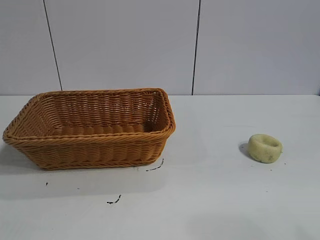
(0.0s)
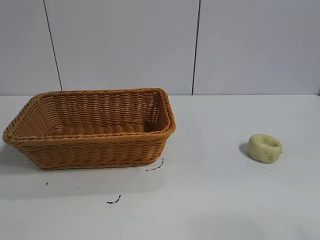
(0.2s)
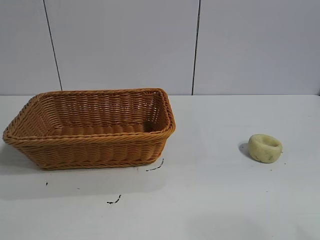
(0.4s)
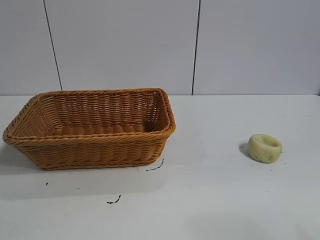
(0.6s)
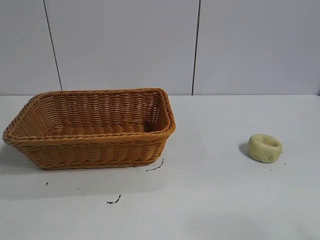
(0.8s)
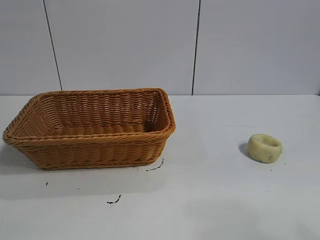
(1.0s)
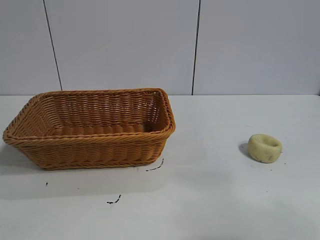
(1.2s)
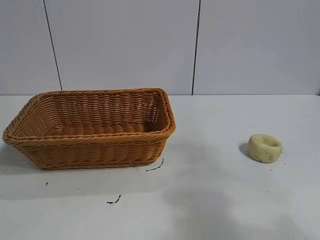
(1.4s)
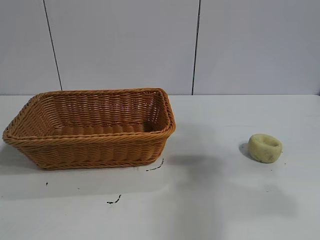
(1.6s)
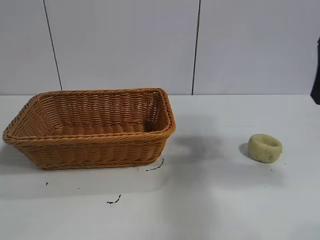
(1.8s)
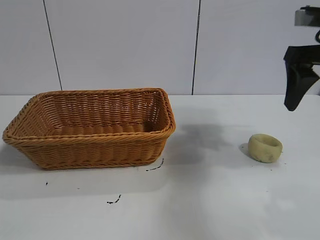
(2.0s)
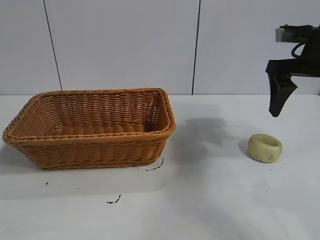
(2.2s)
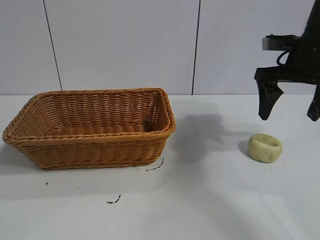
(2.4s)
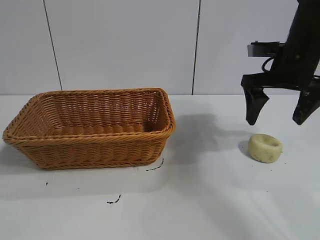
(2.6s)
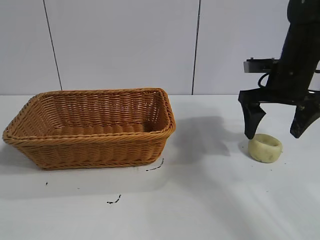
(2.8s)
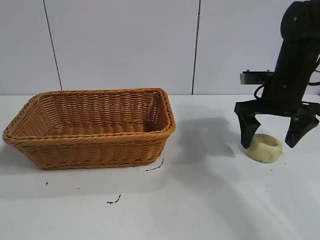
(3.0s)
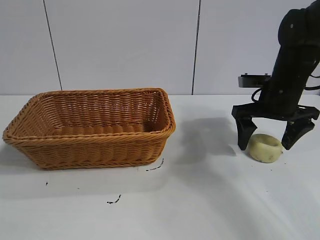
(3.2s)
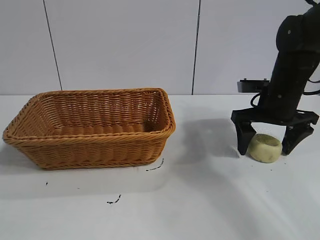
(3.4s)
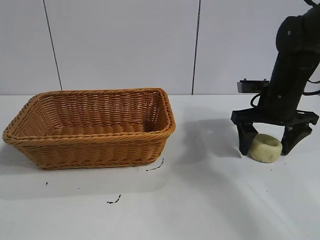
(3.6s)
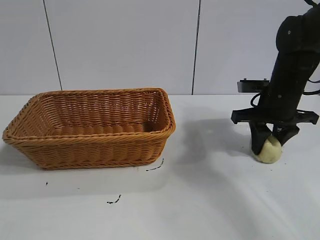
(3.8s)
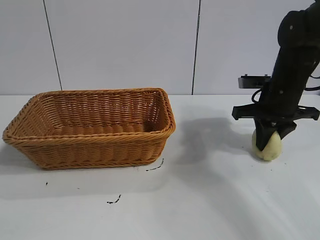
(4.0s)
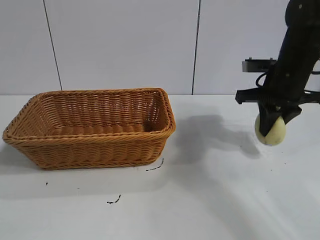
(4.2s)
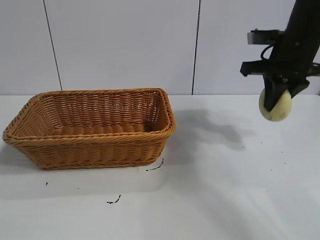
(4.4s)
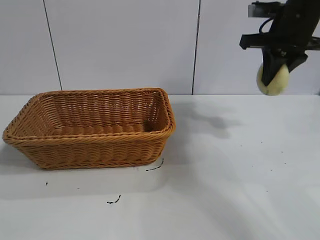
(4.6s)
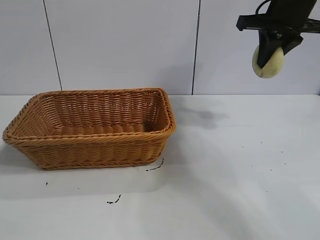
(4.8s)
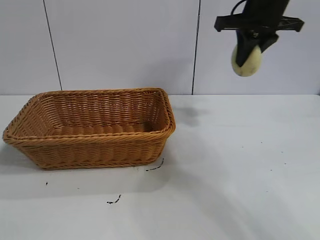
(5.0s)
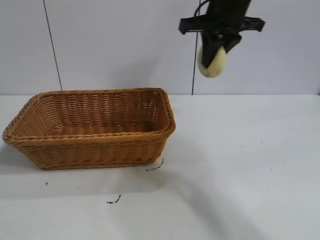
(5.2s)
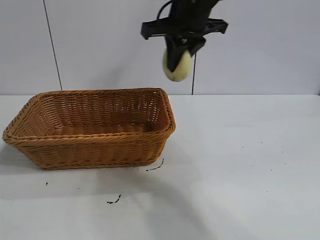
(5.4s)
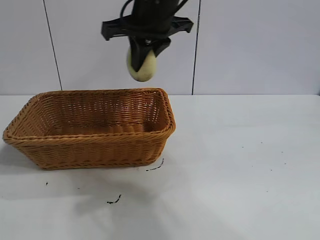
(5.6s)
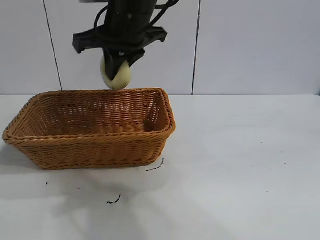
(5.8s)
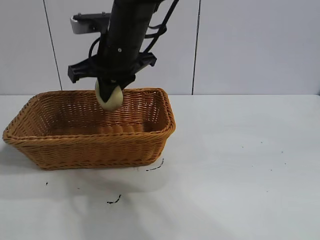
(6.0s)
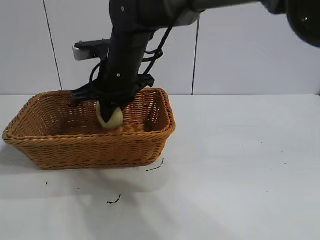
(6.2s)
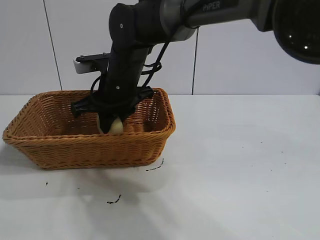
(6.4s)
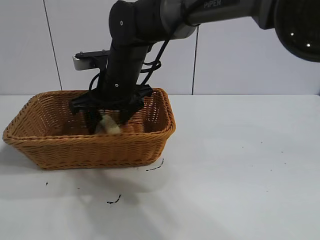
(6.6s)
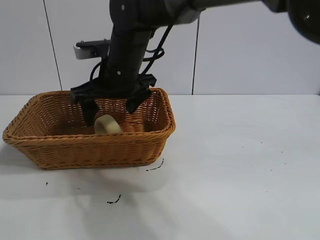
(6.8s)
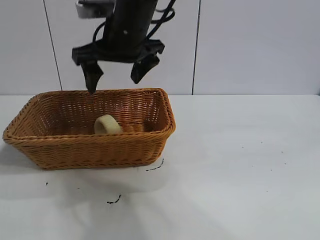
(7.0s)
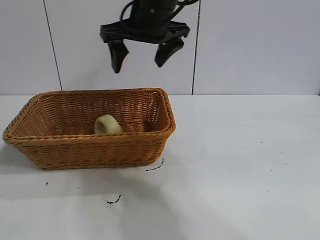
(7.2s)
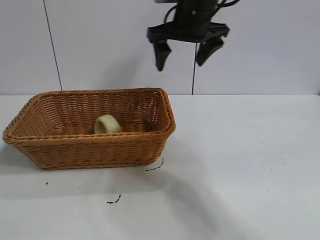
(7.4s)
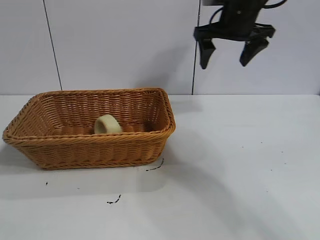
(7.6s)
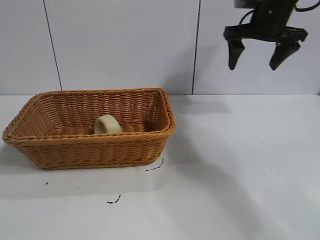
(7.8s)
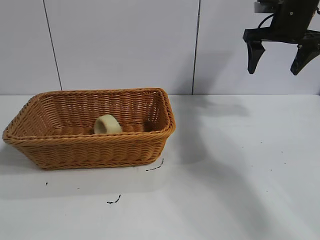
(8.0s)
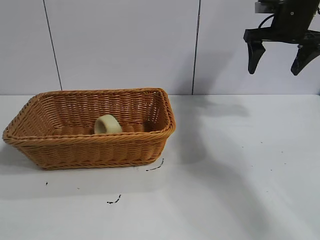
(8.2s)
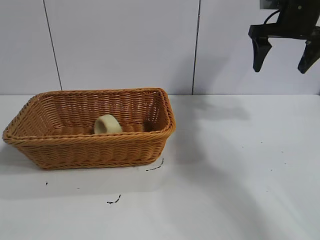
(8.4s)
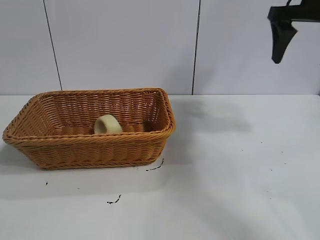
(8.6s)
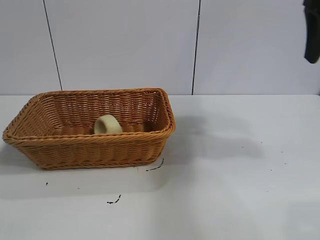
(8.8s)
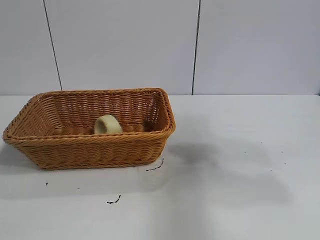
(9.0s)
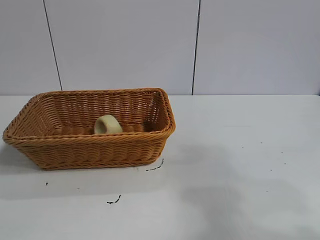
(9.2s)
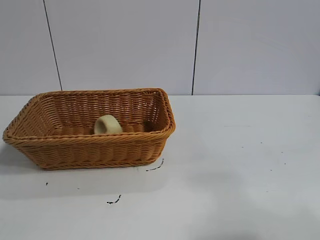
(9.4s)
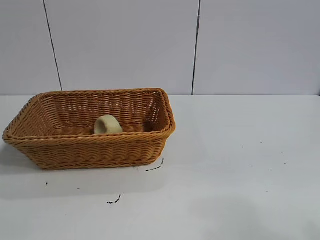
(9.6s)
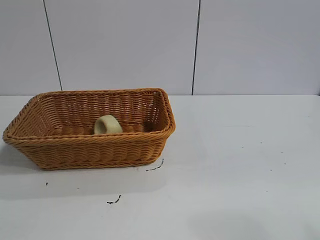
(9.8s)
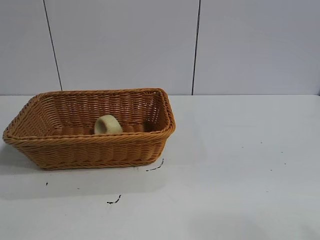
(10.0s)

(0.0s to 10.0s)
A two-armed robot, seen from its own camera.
Task of the whole recording: pick up the egg yolk pastry and put it into the basket.
Step, 0.8s - 3.8s: Grasp egg yolk pastry with right gripper.
Step, 4.2s - 6.8s: Place the egg yolk pastry in the basket with right gripper.
